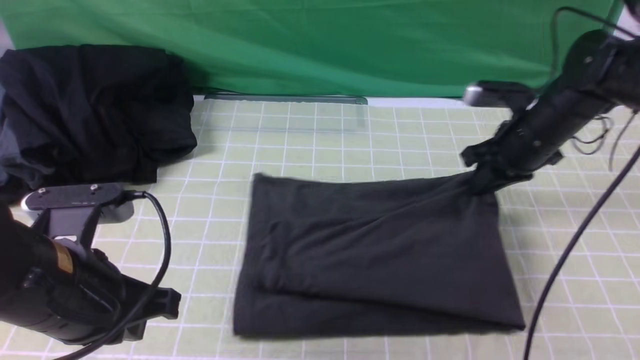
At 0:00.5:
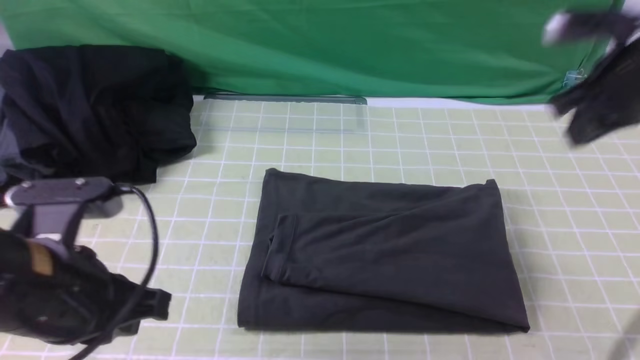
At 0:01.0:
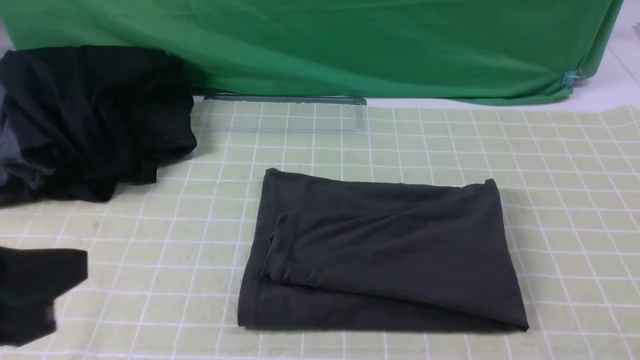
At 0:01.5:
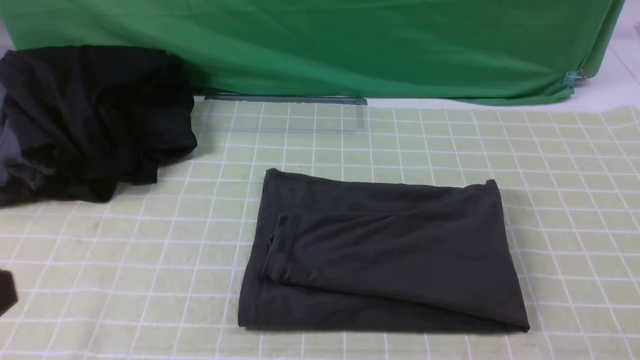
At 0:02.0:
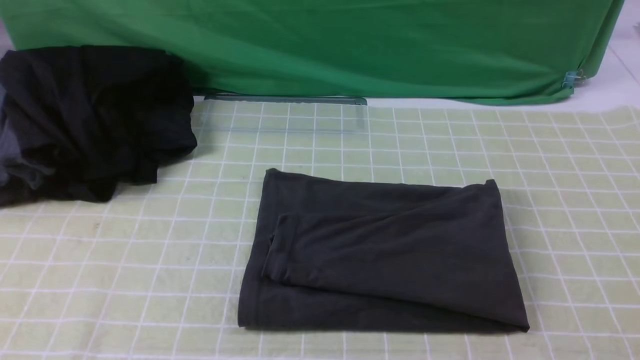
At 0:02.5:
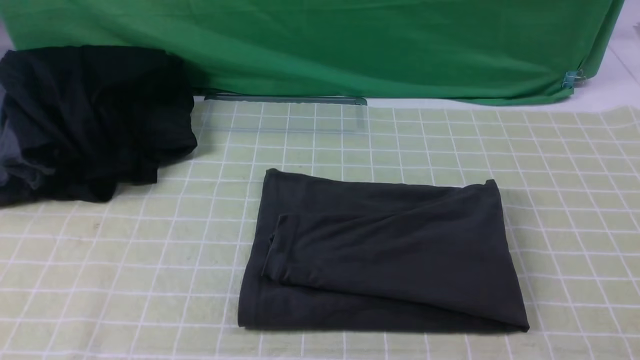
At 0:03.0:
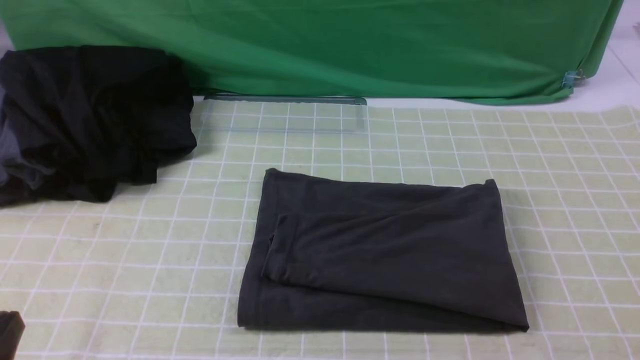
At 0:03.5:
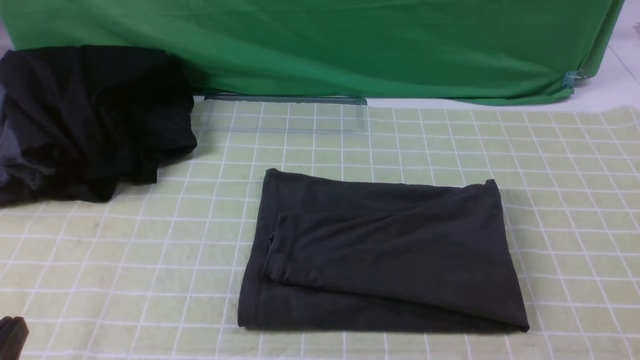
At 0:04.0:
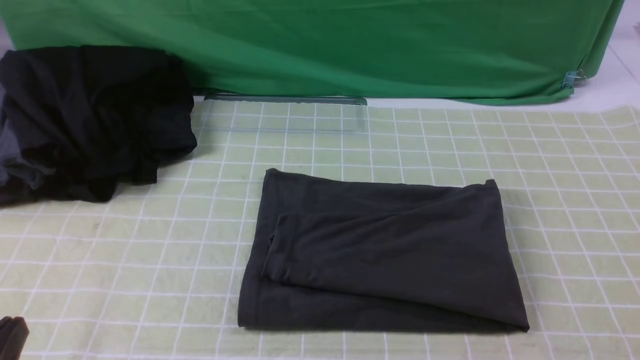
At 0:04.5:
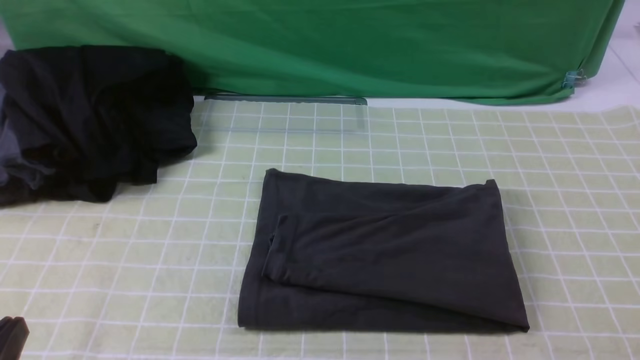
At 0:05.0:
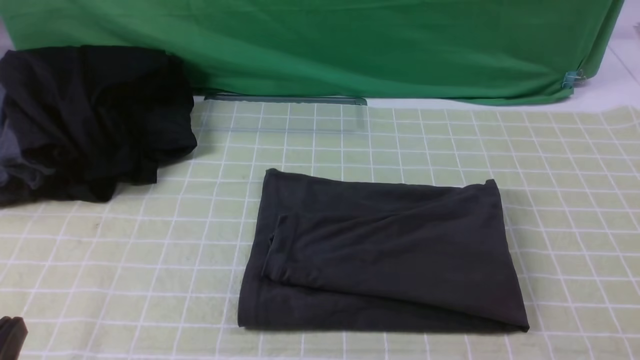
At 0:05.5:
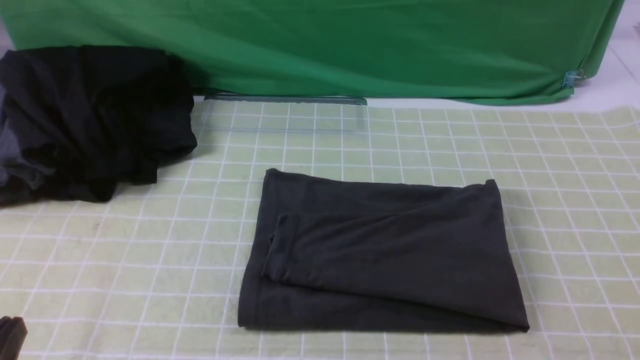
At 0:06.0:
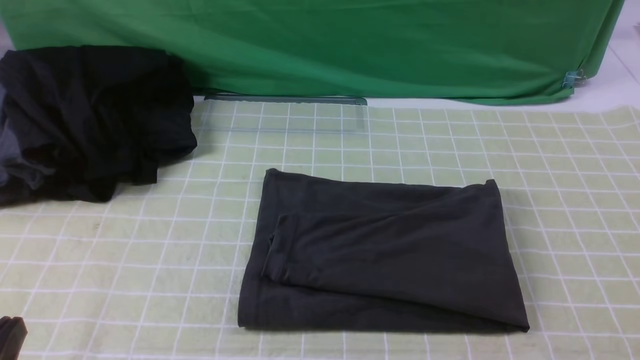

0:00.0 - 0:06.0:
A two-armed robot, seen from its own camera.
0:00.0 - 0:02.0: The left gripper moves backward and upward, some 20 cm. The right gripper heads backward, covering roughly 40 cm.
